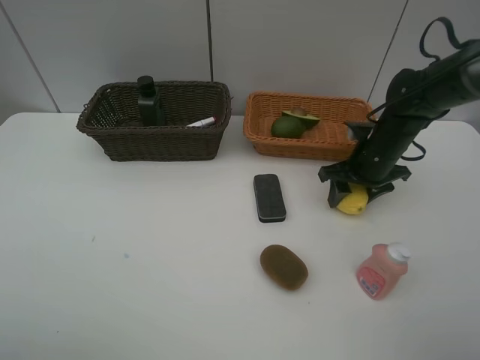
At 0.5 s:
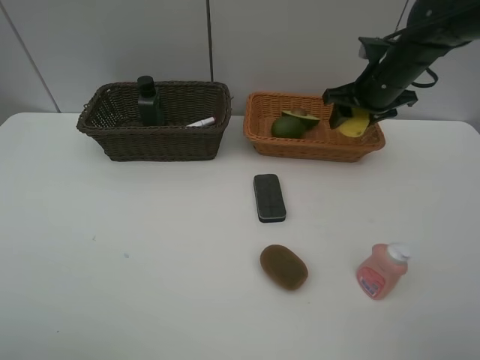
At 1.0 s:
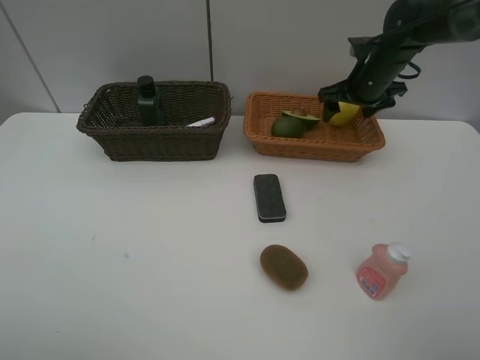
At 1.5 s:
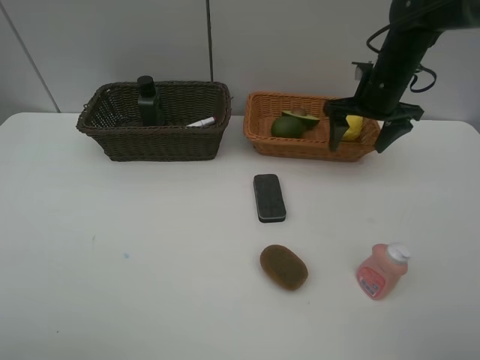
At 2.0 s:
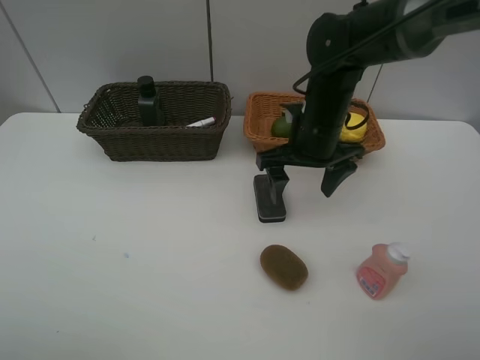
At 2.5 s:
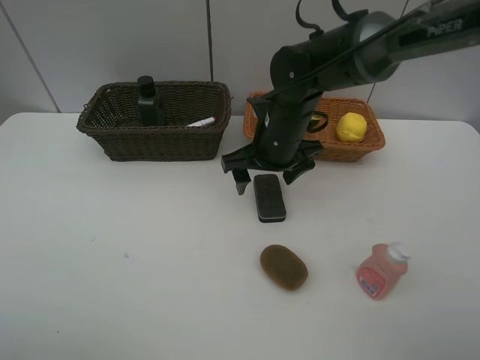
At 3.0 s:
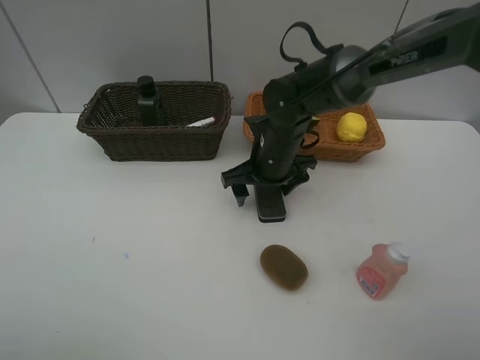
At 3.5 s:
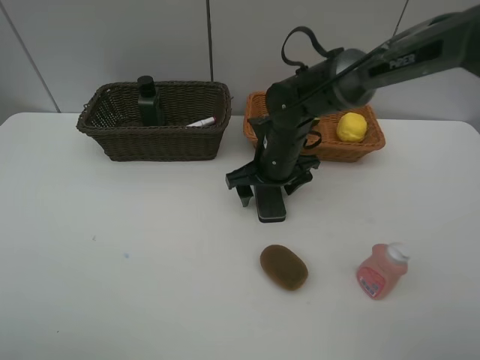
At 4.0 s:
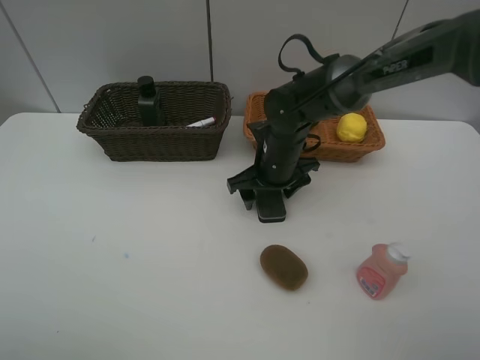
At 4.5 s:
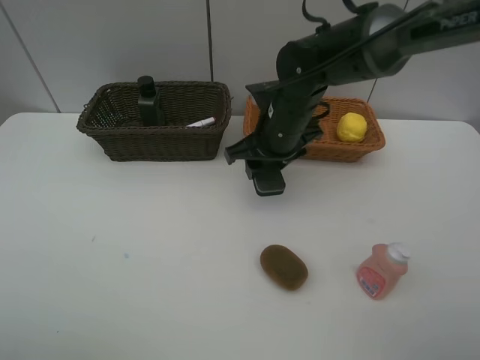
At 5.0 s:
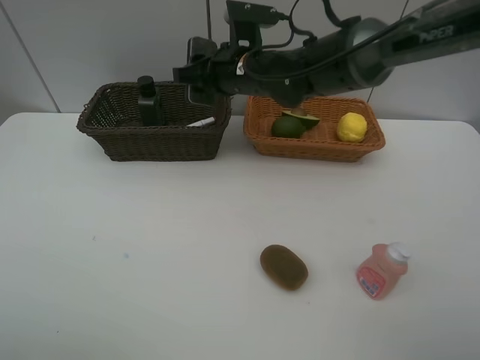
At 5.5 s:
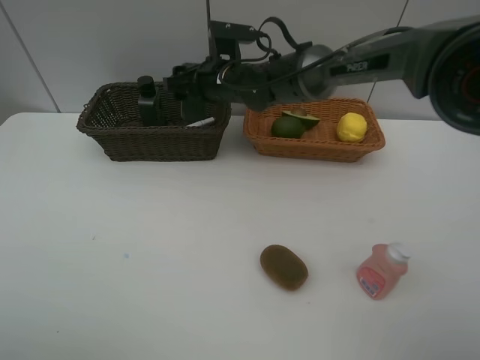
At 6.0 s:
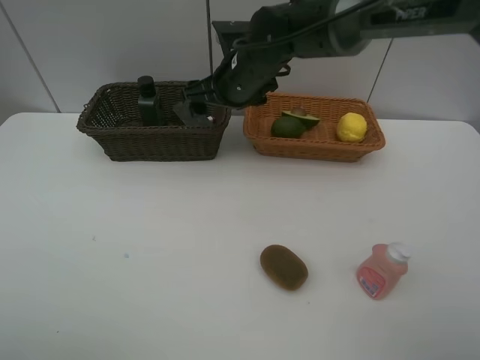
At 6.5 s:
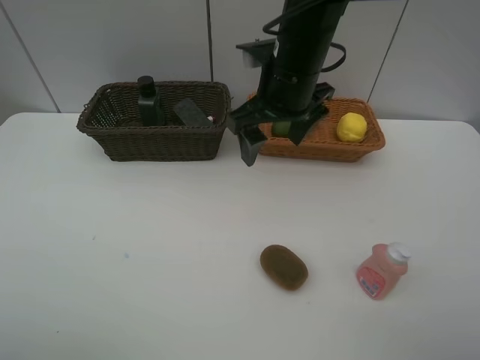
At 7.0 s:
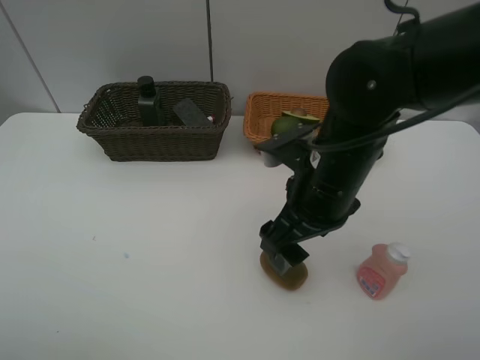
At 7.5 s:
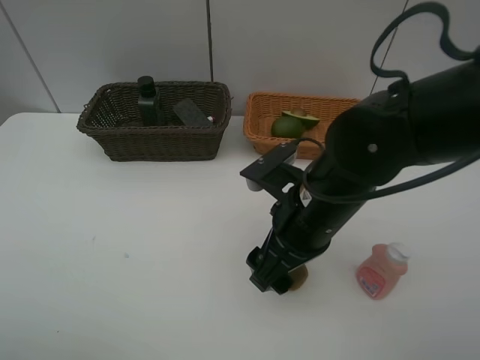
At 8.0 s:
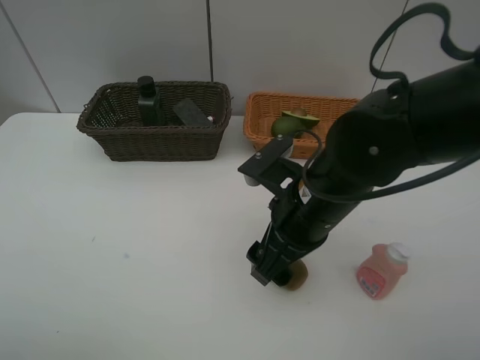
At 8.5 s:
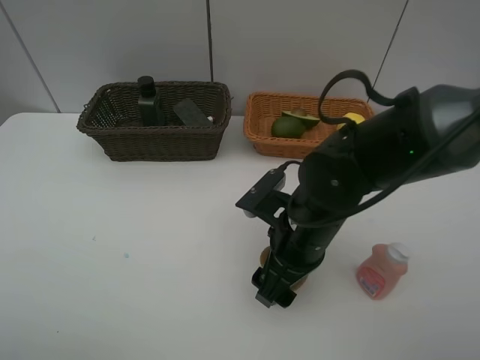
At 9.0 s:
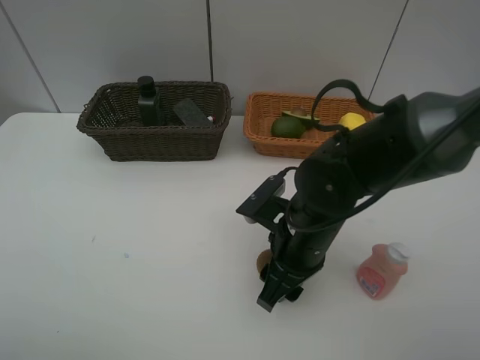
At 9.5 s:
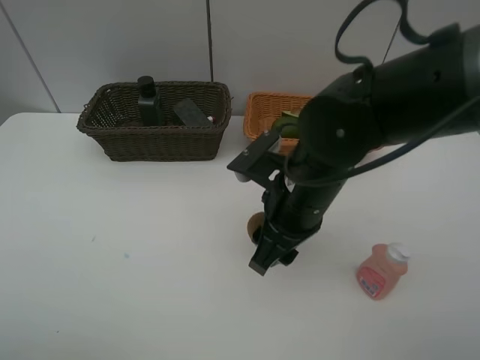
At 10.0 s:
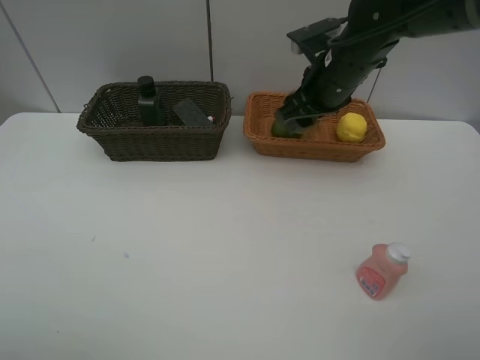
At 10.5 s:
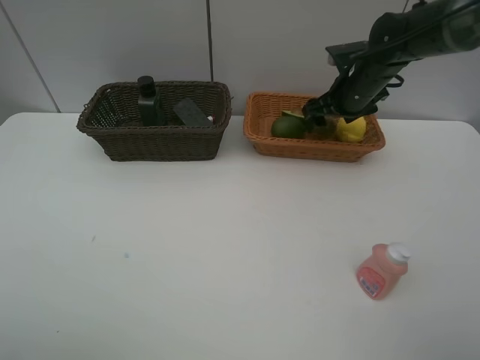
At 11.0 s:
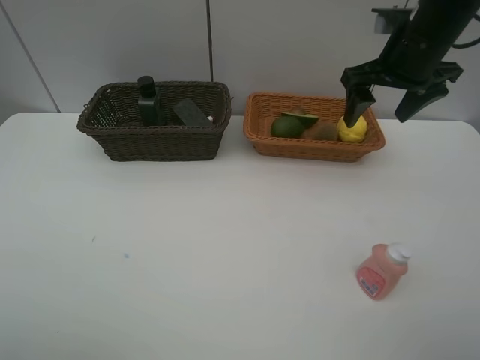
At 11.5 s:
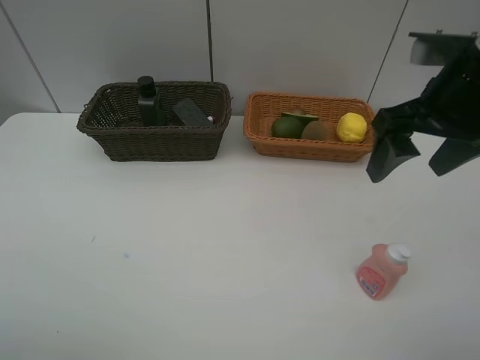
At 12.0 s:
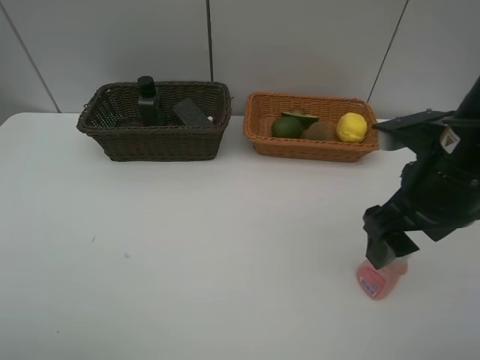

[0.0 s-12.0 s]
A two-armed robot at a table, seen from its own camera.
Task of the whole recording: Place multiple objects separately in different baskets.
Step, 0.5 to 1.0 s: Place the lemon in the light basket with right gripper.
Step, 1.5 to 4.0 s: Pick up blackboard eraser with right gripper.
Step, 4.5 to 5.5 s: Place the blackboard eraser in the dark basket with right gripper.
Step, 6.0 to 9.0 s: Pick up kiwi with right gripper.
Step, 9.5 to 10.5 s: Place the kiwi in the light basket with right gripper.
0.0 to 2.0 s: The right gripper travels to the left and upward by approximately 15 cm, travels forward and back again, about 10 cm each way, and opens its fingers.
2.0 to 4.0 s: The right gripper shifts some 10 cm downward.
4.0 to 6.0 s: The right gripper travels upward and to the left by approximately 15 cm, and closes, then reopens.
6.0 to 8.0 s: The right gripper travels backward by roughly 20 cm.
8.0 to 10.0 s: The right gripper goes roughly 20 cm forward, and closes its fingers.
10.0 to 12.0 s: The right gripper heads backward, covering some 20 cm, and opens its fingers.

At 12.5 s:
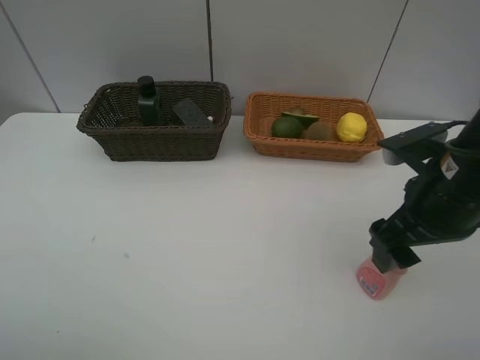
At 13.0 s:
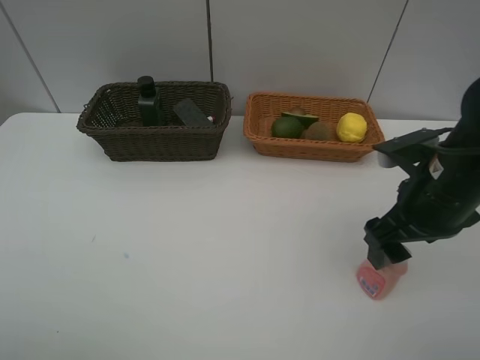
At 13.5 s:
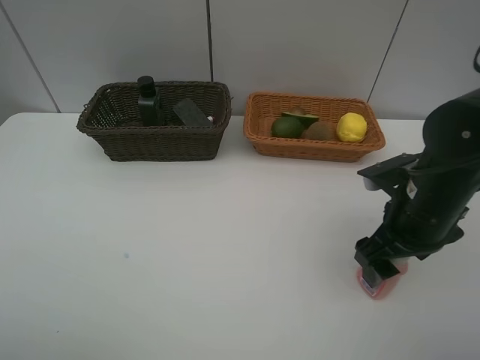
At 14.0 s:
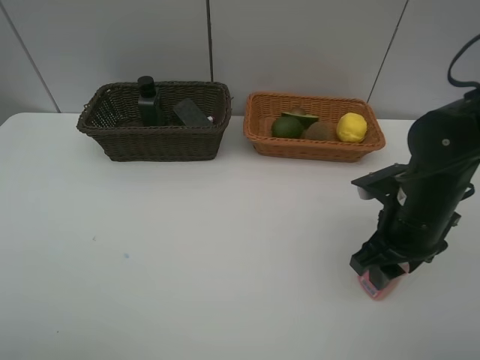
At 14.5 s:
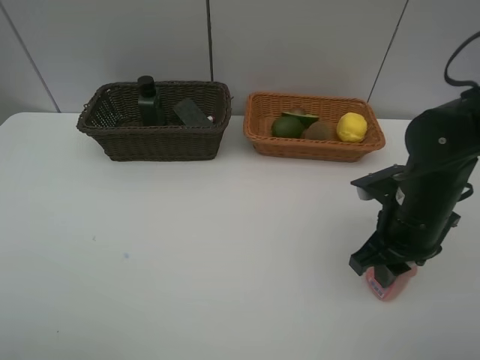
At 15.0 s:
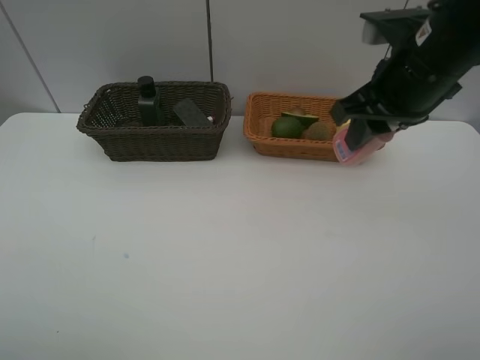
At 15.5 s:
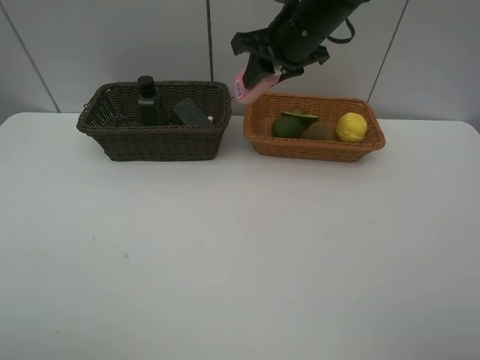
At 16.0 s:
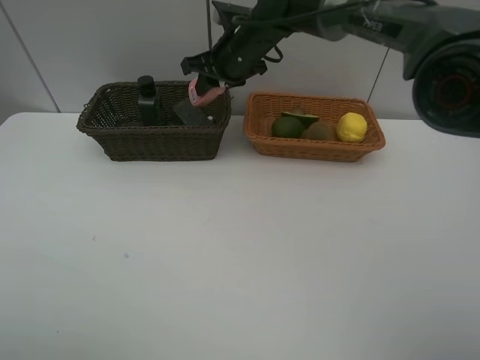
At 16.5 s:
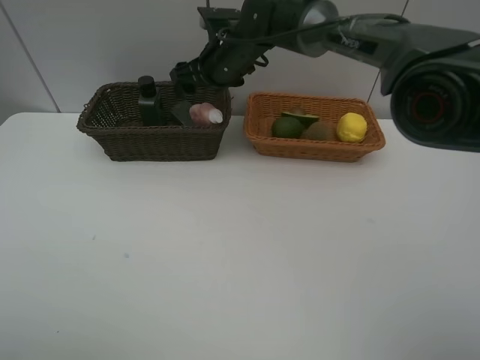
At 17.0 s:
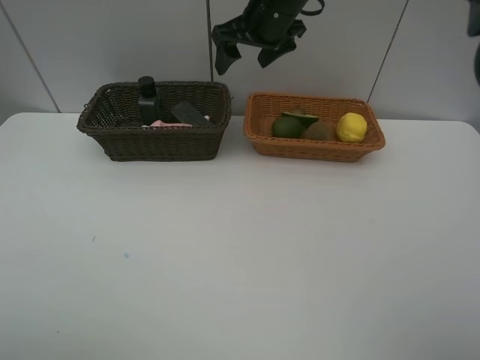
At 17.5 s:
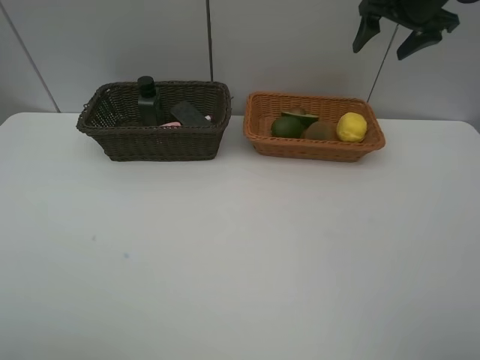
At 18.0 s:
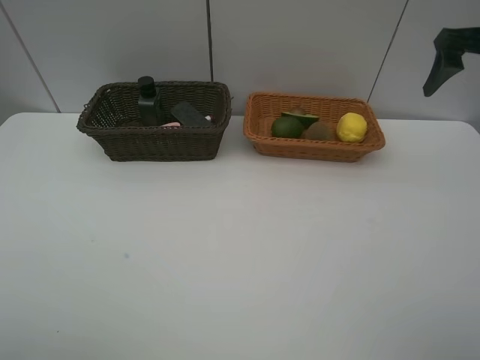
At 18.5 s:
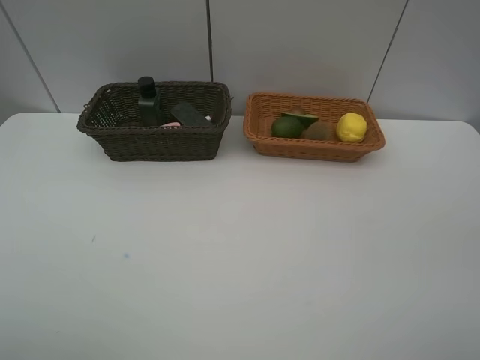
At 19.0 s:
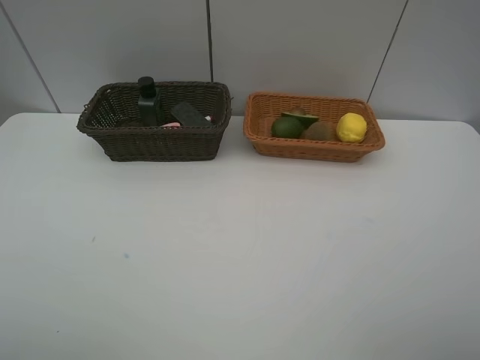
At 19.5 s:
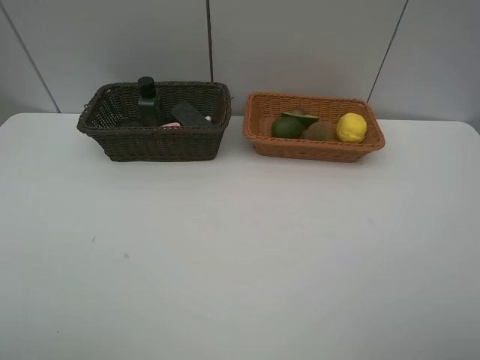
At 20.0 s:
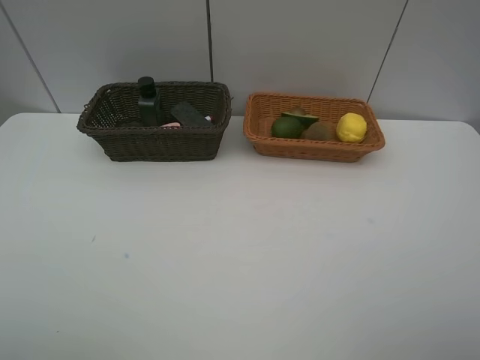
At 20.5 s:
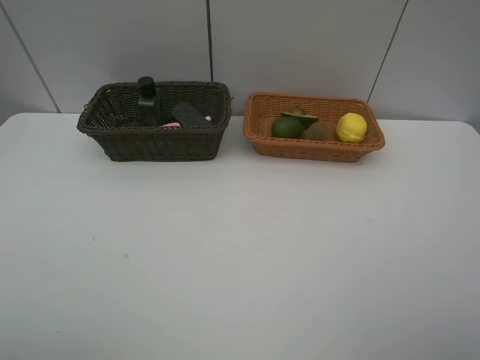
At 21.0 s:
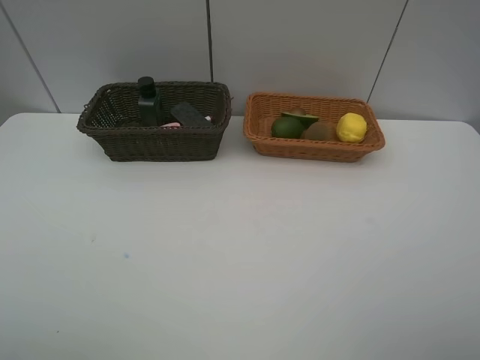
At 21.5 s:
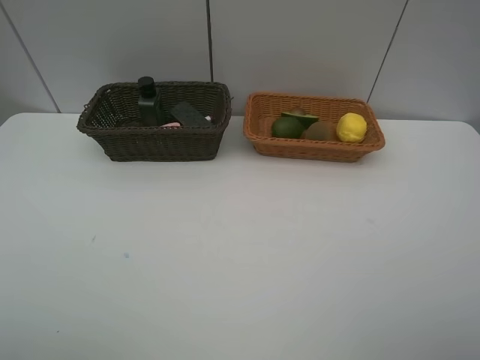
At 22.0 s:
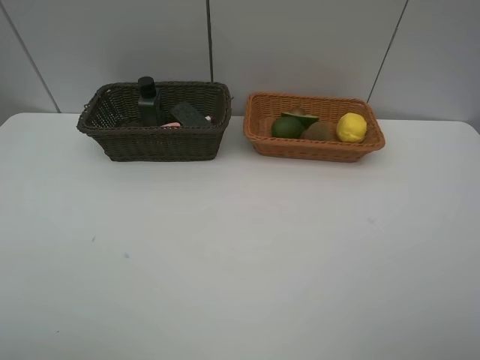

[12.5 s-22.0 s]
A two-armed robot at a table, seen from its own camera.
Task of the whole recording: Place multiple objects separately in different baskets.
Step, 12.5 to 14.5 s: Pick up the laundry detergent with right gripper.
Step, 15.0 to 16.5 s: Place the laundry detergent in the dark basket with right gripper.
12.5 to 14.5 s: The right gripper shifts about 5 cm downward, and closes up.
14.5 to 16.5 s: The right gripper is displaced forward and to the left by some 35 cm, and opens its fingers.
16.5 to 18.0 s: The right gripper goes approximately 35 cm to the right.
18.0 to 20.0 s: The right gripper goes approximately 35 cm backward.
20.0 to 22.0 s: Both grippers stay about where they are.

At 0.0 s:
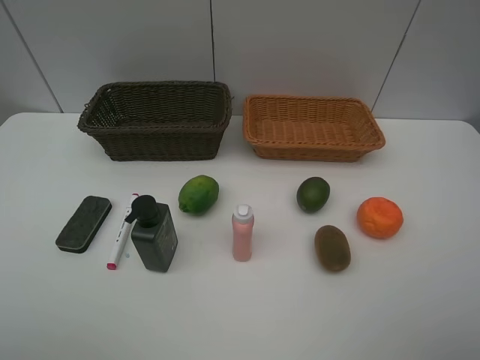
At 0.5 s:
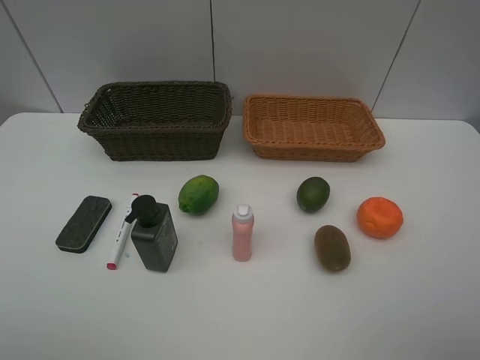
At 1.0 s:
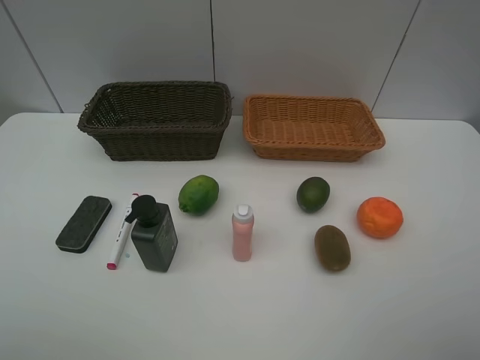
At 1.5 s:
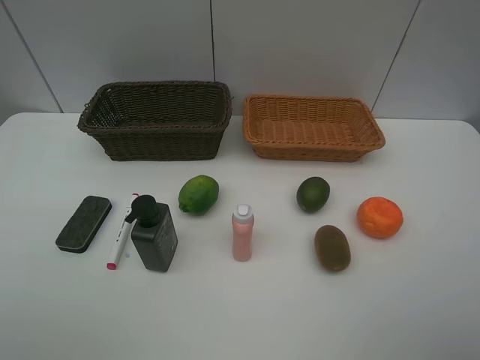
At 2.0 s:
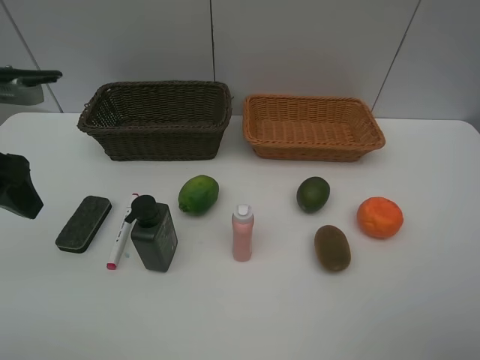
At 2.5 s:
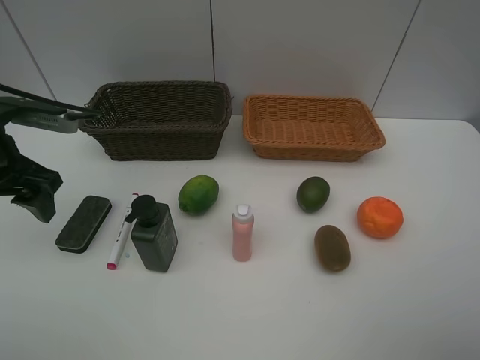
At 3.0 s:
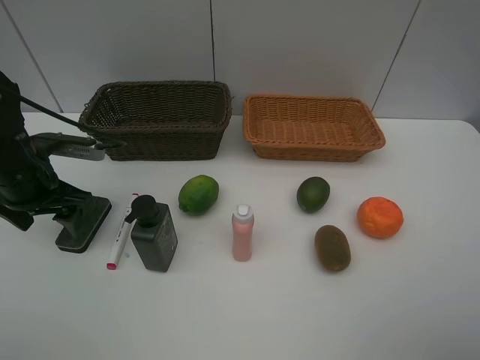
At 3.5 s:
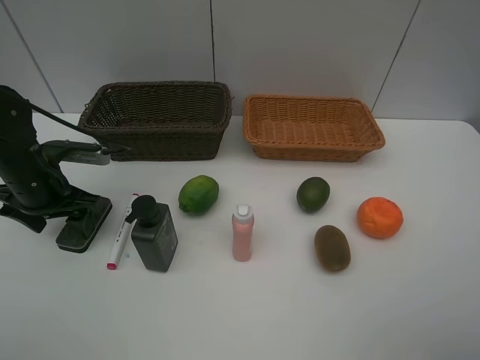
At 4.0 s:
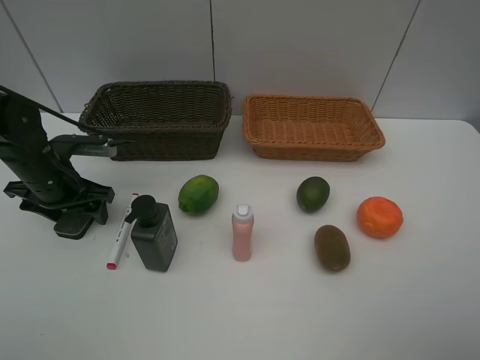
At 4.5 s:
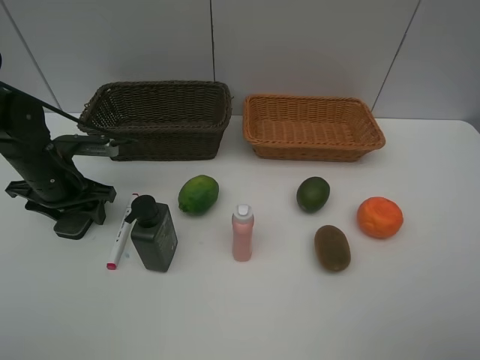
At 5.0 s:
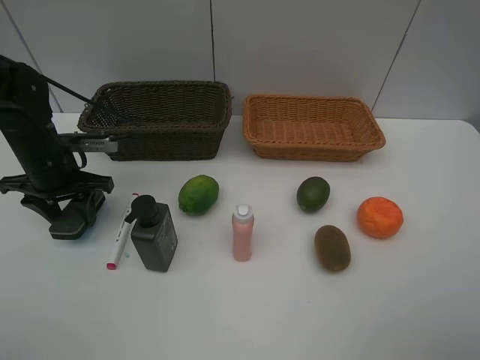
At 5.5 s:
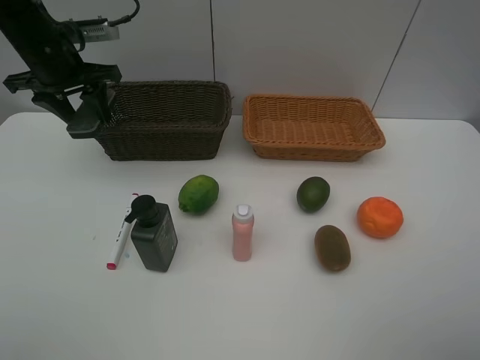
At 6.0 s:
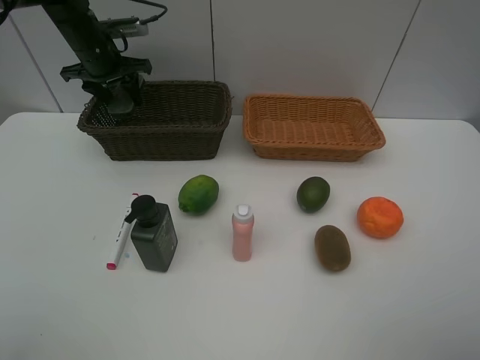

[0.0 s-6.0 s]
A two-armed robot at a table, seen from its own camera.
Task of the whole recording: Place multiple objects separately in different baskets.
Step, 0.0 to 5.0 s: Pick up blackboard eraser with left gripper.
0.0 to 2.0 s: The left gripper heads forward, covering approximately 20 cm.
2.0 to 4.0 s: The left gripper moves downward and forward, roughly 20 cm.
4.0 to 6.0 s: The left gripper heads forward and upward, covering some 20 cm, and closes.
